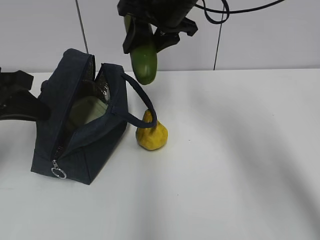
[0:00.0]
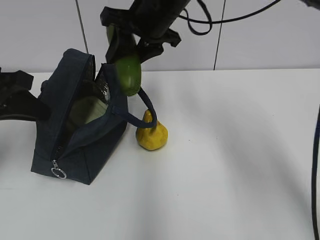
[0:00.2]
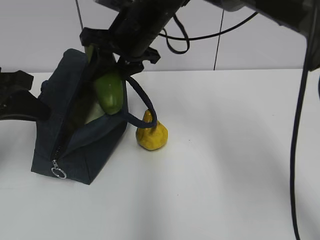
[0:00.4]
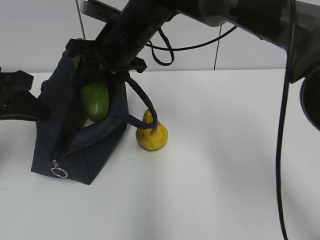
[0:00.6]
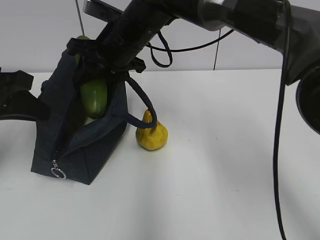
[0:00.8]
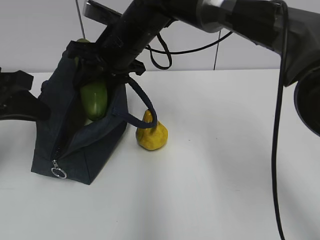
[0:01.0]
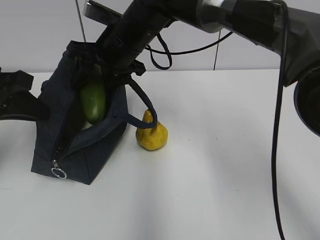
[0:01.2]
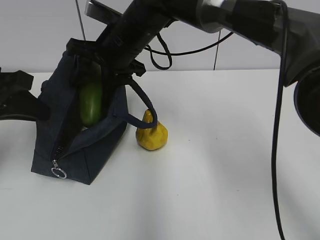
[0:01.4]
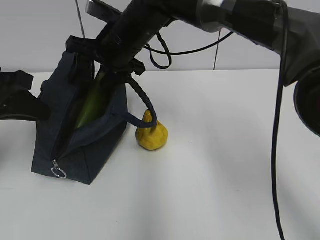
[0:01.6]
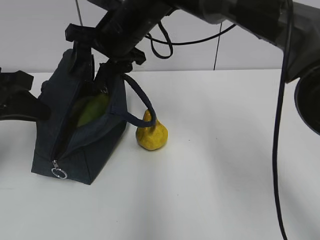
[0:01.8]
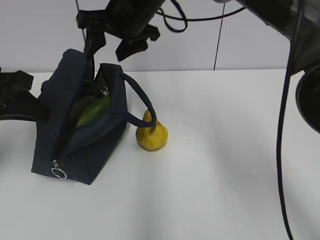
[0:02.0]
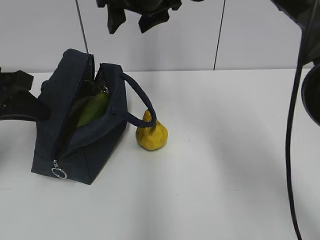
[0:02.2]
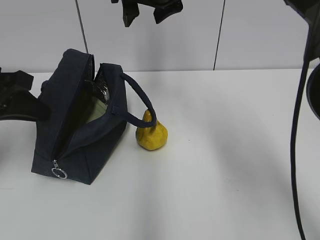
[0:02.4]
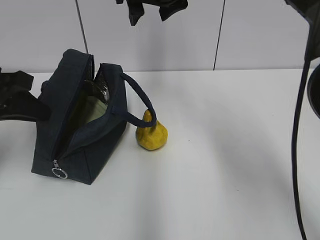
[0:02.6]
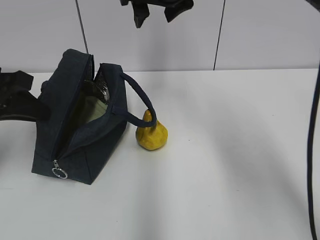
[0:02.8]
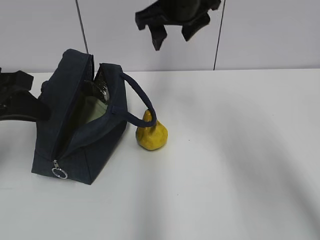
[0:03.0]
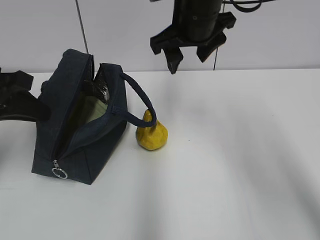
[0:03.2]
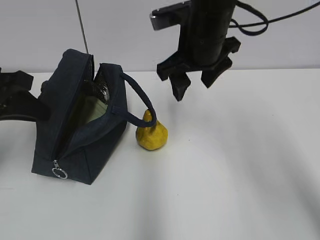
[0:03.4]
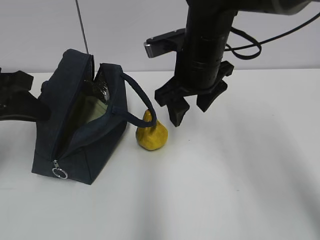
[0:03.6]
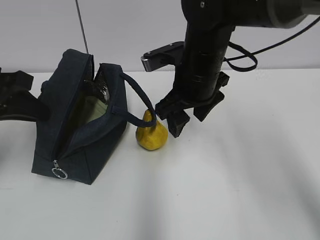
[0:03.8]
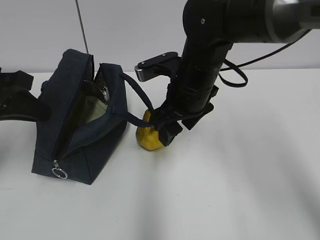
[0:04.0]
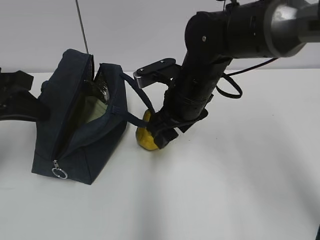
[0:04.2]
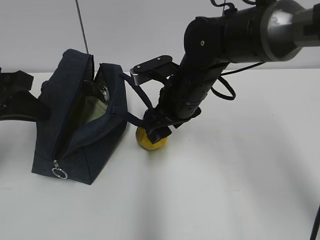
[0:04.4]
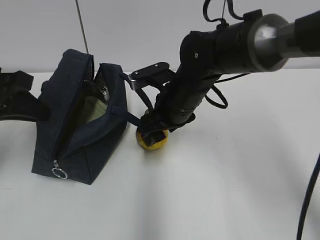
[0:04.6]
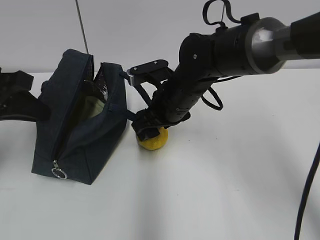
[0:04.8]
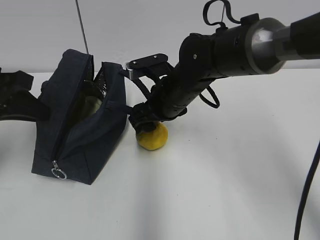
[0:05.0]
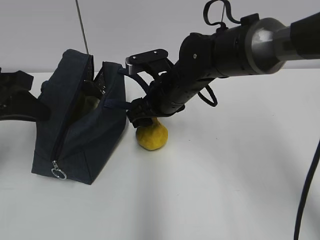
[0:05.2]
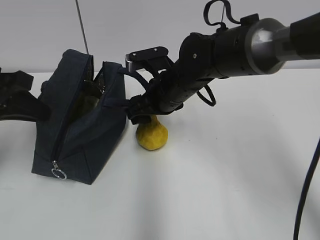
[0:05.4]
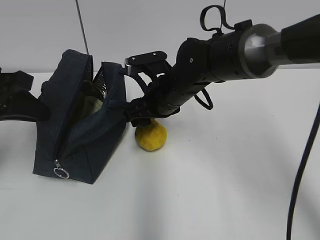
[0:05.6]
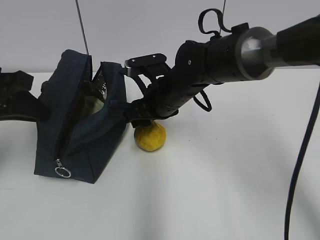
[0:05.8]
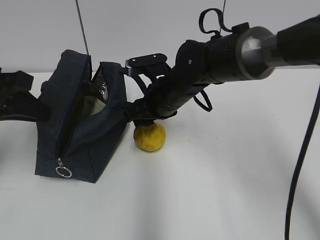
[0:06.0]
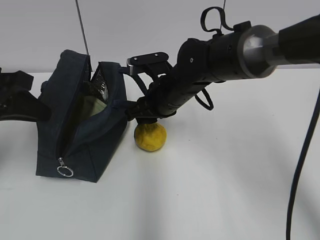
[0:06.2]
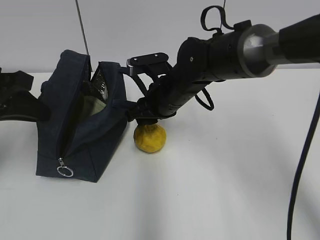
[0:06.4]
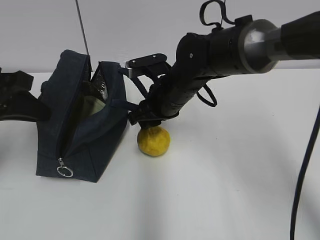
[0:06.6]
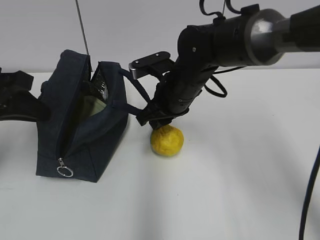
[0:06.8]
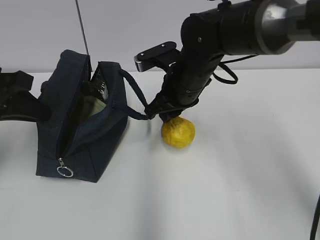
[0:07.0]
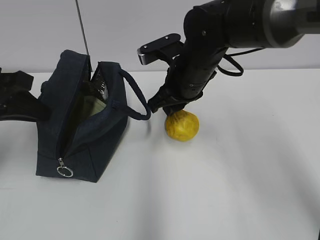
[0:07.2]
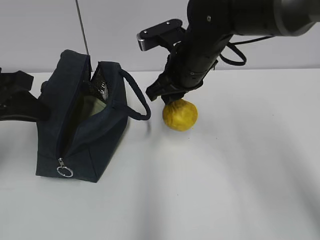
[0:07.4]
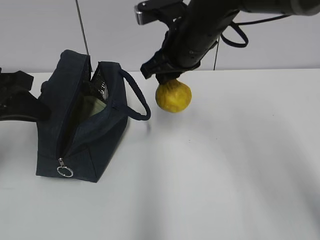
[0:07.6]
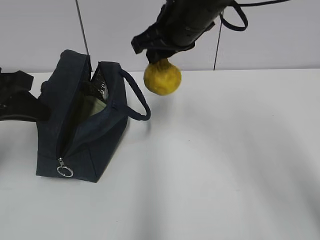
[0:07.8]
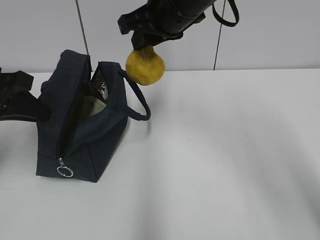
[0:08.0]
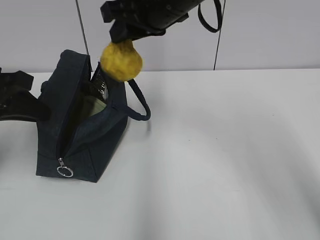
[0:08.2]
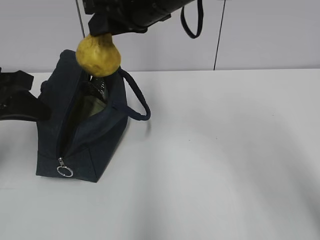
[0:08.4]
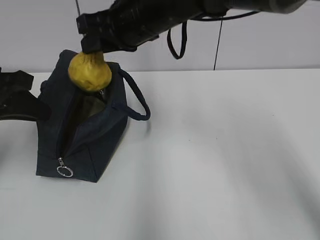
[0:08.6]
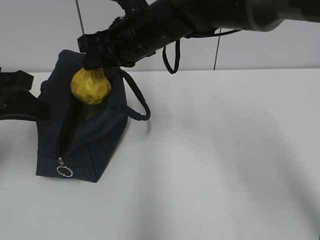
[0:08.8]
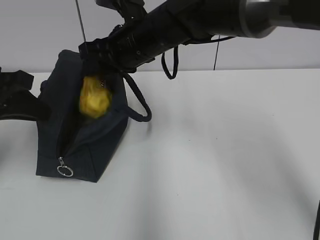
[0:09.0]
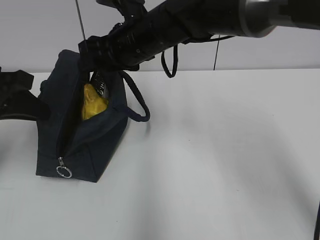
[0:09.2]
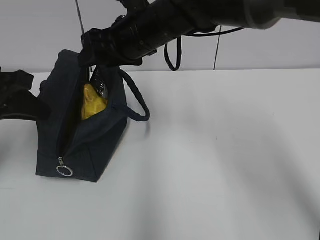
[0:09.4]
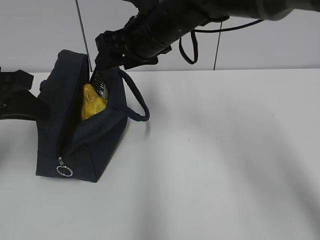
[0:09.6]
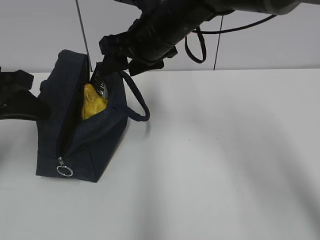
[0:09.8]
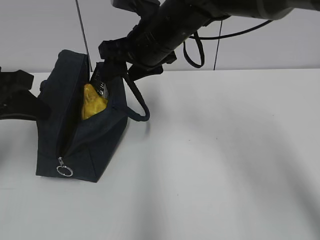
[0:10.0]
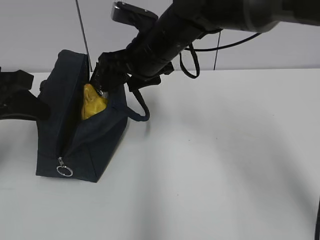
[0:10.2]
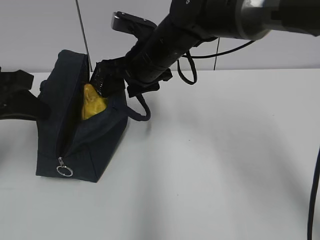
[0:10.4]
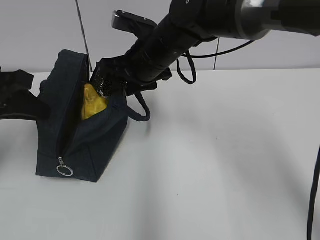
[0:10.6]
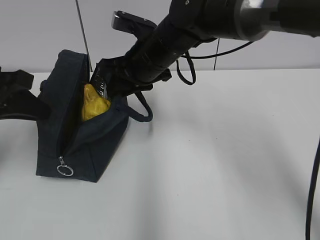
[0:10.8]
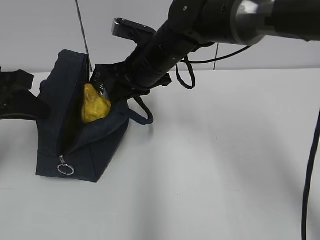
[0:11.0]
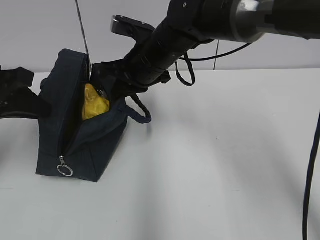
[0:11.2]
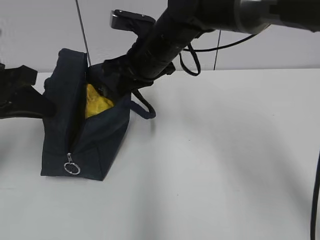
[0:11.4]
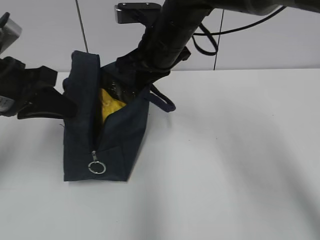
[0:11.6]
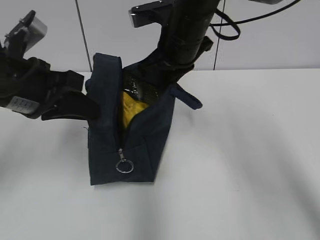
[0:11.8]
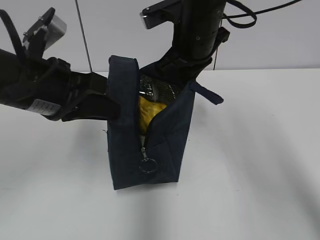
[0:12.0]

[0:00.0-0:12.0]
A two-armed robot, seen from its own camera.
0:00.0 to 0:01.6: The right gripper is displaced to the left and downward by roughly 10 cm.
0:01.6 to 0:03.0: The right gripper shifts roughly 10 cm to the right and upward.
0:03.0 to 0:04.4: The right gripper goes about 15 cm downward and backward.
0:04.4 to 0:06.0: The right gripper closes up.
0:06.0 to 0:07.6: The right gripper is displaced upward by about 10 cm.
0:07.6 to 0:09.0: The right gripper is displaced to the left by about 5 cm.
0:09.0 to 0:10.4: The grippers move only a little.
0:10.4 to 0:12.0: The right gripper heads to the right, covering roughly 5 cm, and closes its fingers; the left gripper is displaced to the right by roughly 10 cm.

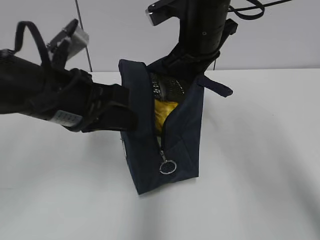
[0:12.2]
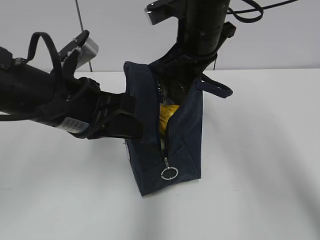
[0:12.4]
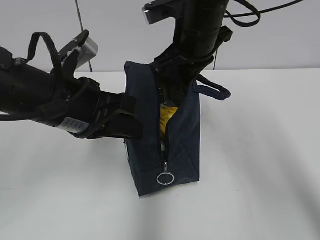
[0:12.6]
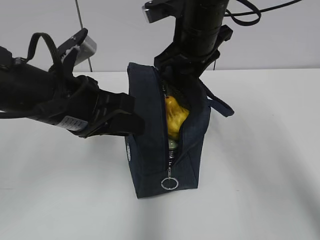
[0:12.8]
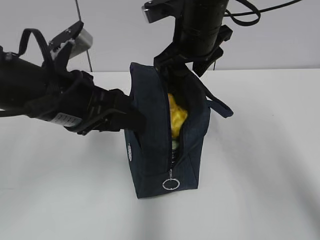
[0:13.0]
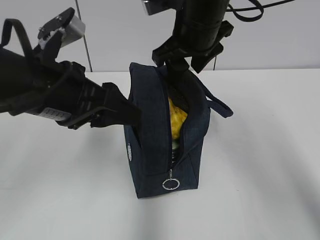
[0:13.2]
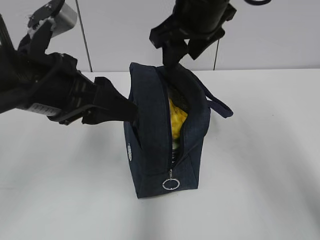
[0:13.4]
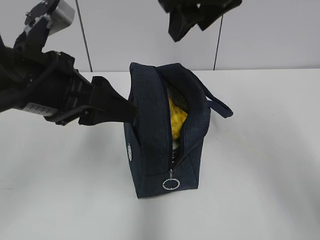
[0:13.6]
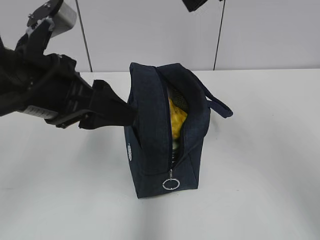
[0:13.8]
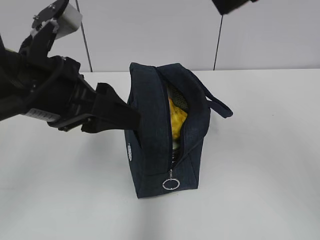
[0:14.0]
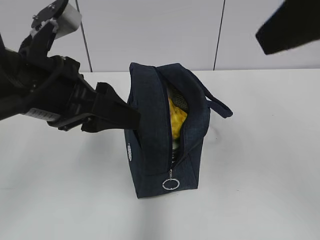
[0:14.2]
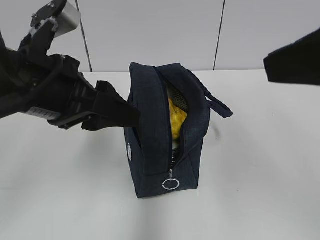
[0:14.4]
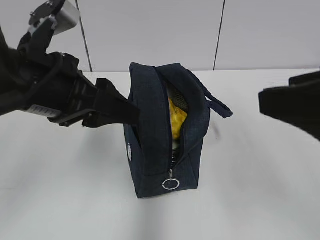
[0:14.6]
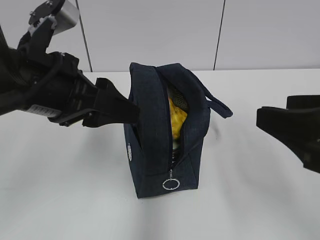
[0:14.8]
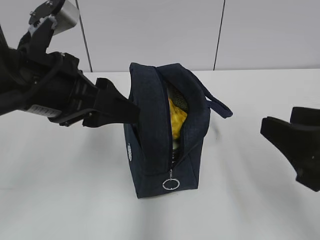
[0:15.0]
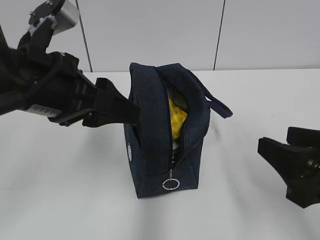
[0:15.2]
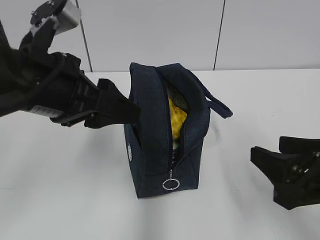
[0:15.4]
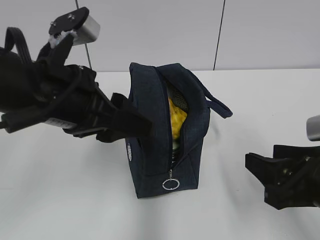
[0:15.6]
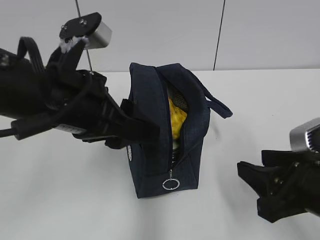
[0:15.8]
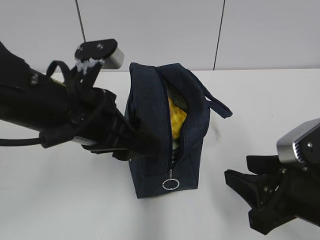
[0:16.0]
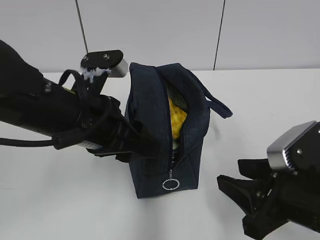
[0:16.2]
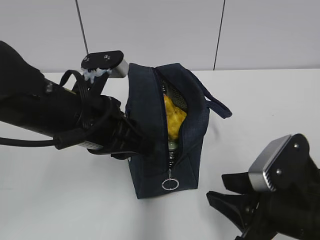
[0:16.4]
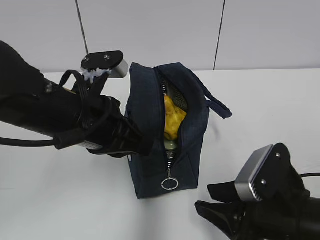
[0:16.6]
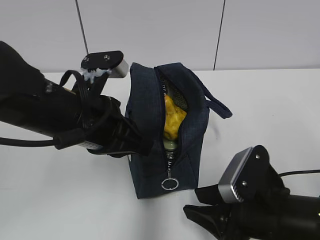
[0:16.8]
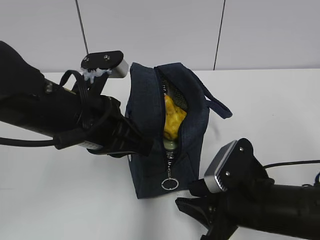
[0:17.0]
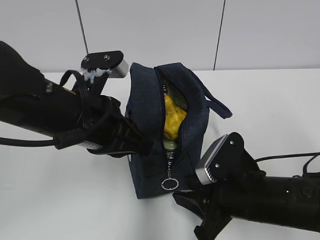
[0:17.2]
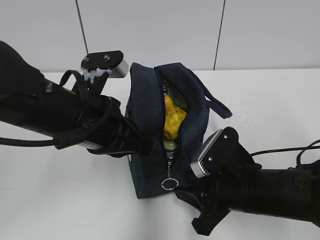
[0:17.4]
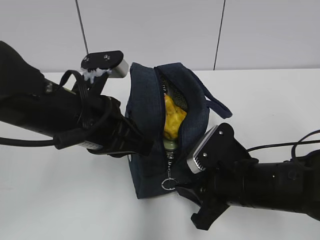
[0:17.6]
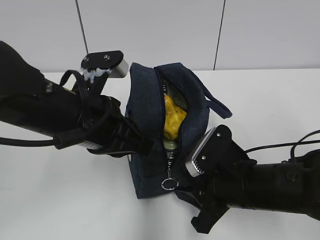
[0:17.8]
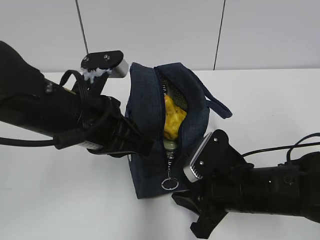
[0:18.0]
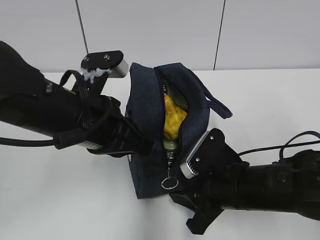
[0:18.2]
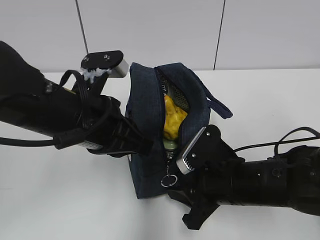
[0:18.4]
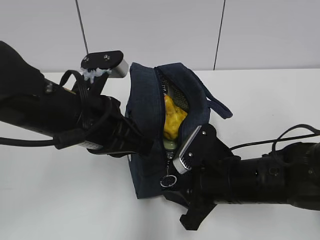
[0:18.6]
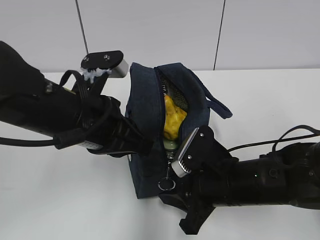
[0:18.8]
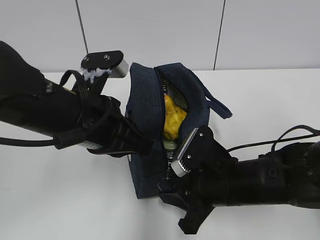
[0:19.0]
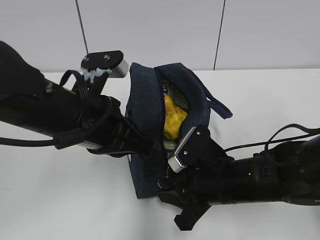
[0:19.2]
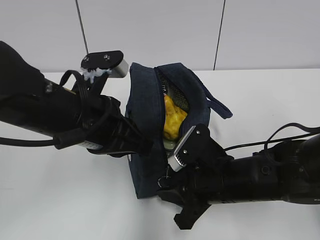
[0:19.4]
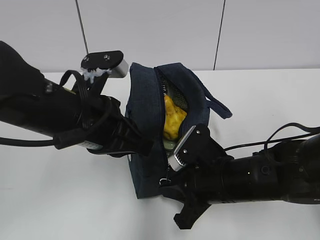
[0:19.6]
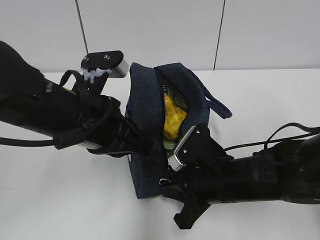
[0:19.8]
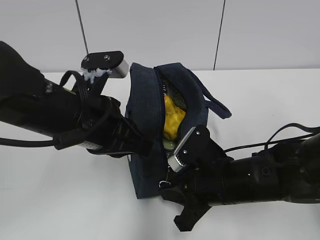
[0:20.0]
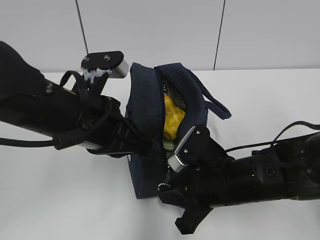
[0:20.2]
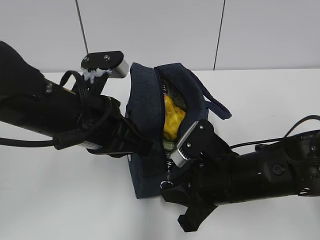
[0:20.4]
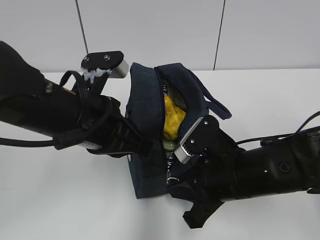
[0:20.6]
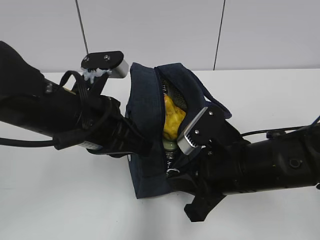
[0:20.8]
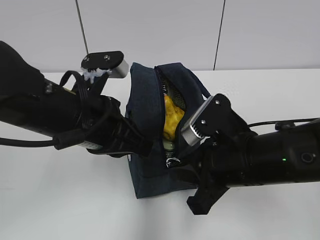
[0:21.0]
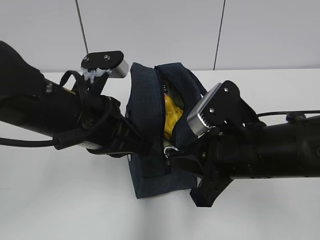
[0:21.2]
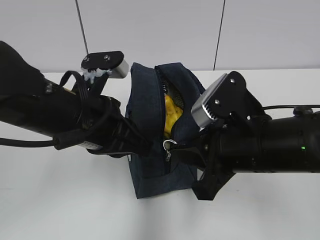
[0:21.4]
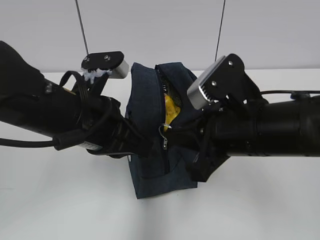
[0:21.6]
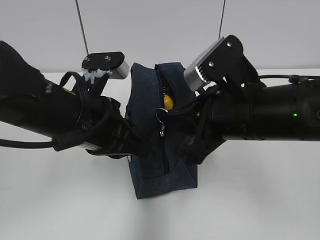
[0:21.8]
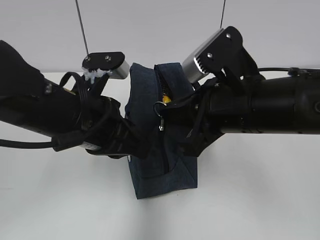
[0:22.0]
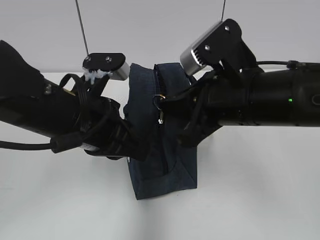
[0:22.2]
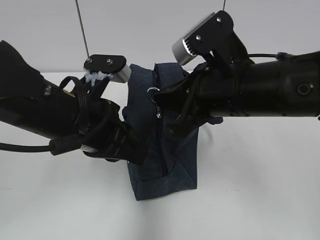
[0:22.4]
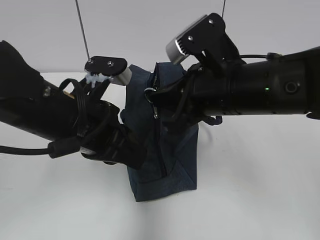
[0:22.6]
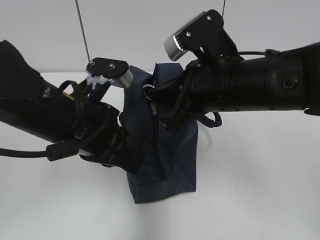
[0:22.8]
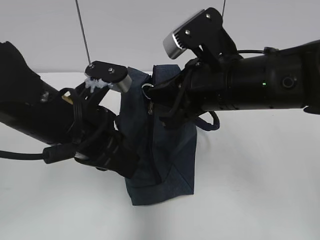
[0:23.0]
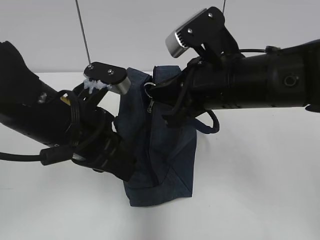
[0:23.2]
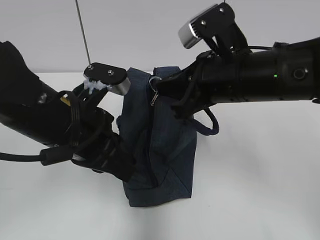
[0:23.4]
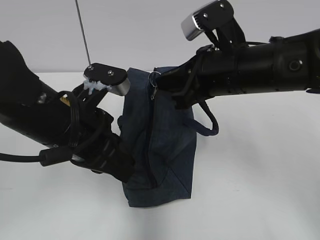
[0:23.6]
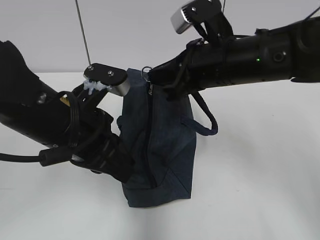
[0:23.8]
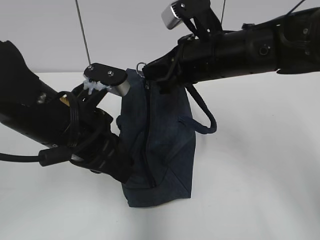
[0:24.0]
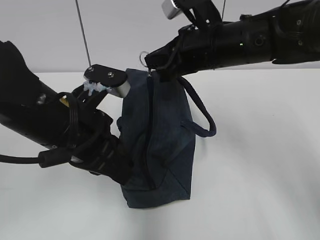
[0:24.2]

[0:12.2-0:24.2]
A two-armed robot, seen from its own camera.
0:12.2 to 0:13.8: The left gripper opens. Meanwhile the right gripper moves upward and backward, approximately 20 cm, and opens up.
0:13.8 to 0:15.2: The right gripper goes roughly 25 cm downward, backward and to the right.
0:15.2 to 0:16.6: The left gripper moves downward, roughly 5 cm, and closes its fingers. The right gripper is displaced downward and to the left by some 10 cm.
0:16.6 to 0:18.2: The right gripper shifts approximately 5 cm forward.
0:18.2 to 0:19.8: The right gripper closes.
0:19.8 to 0:21.2: The right gripper moves upward, about 10 cm.
0:21.2 to 0:22.6: The right gripper goes roughly 5 cm upward.
0:22.6 to 0:24.2: The right gripper shifts approximately 10 cm forward.
